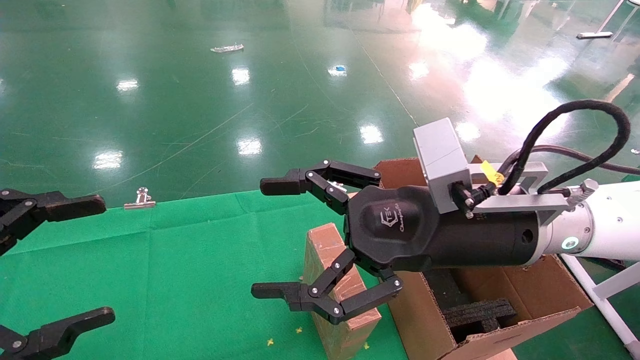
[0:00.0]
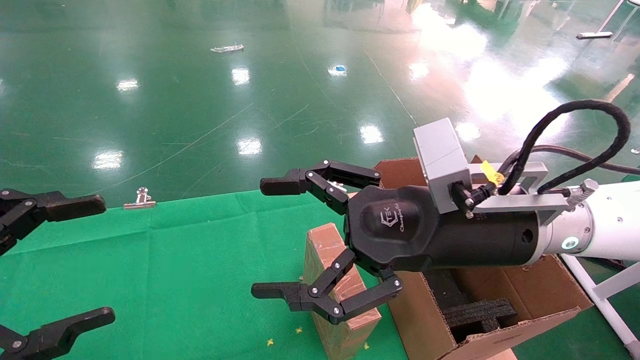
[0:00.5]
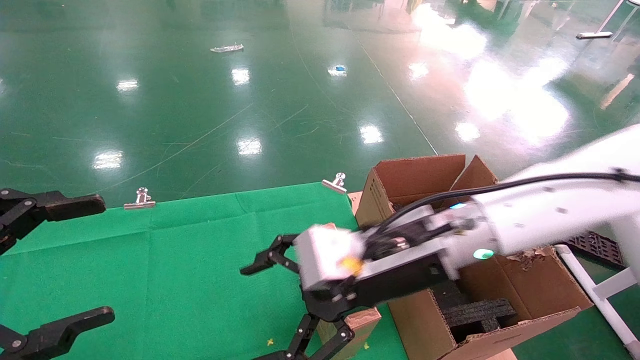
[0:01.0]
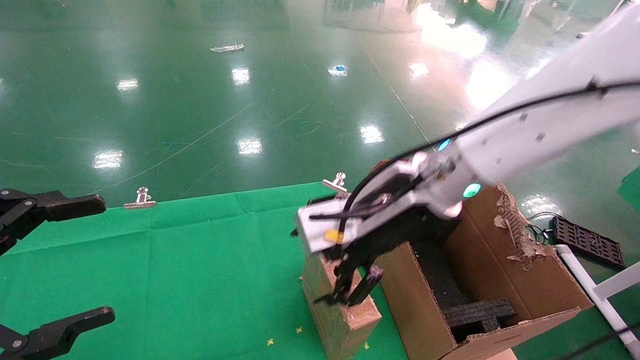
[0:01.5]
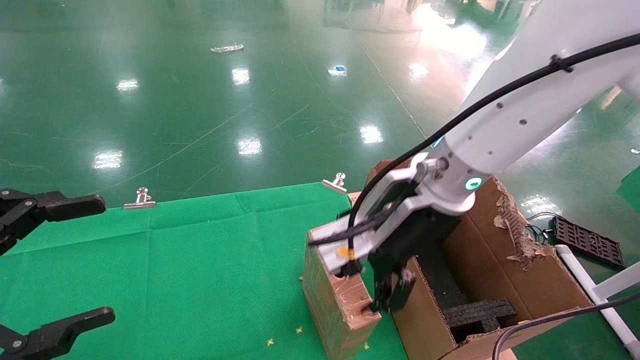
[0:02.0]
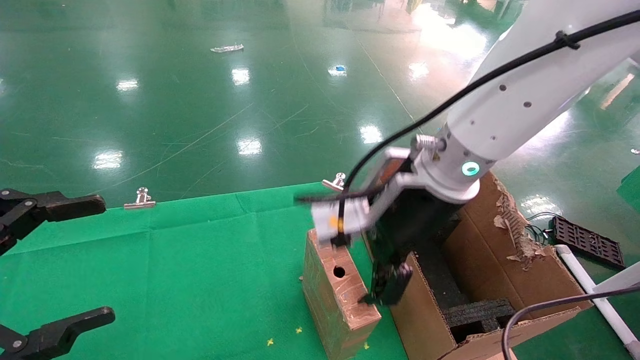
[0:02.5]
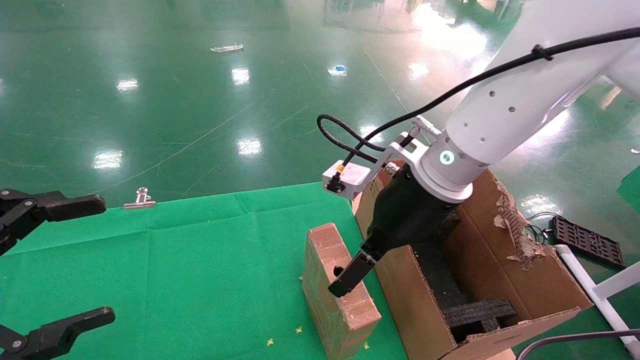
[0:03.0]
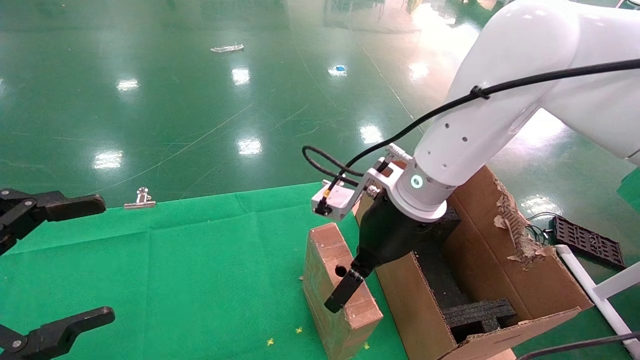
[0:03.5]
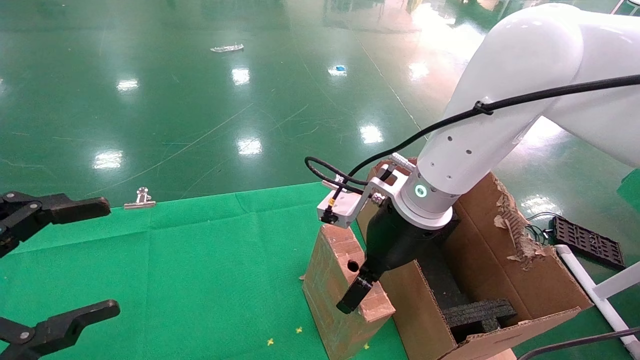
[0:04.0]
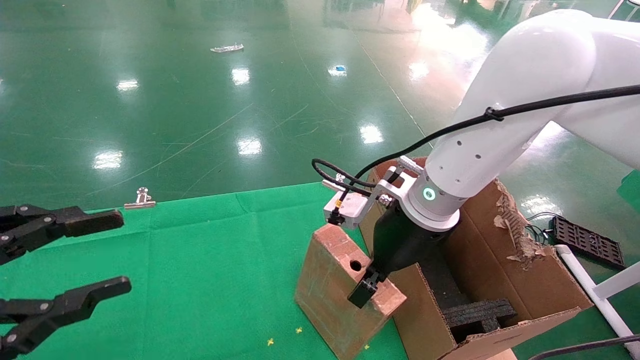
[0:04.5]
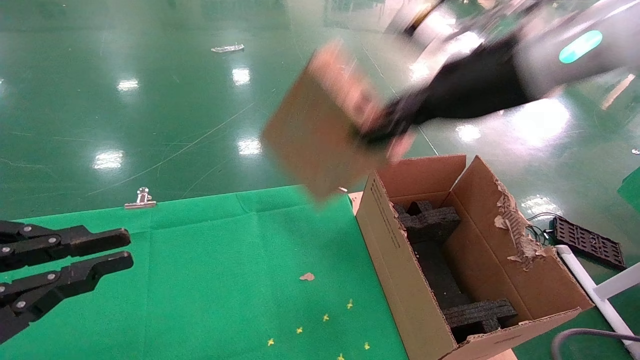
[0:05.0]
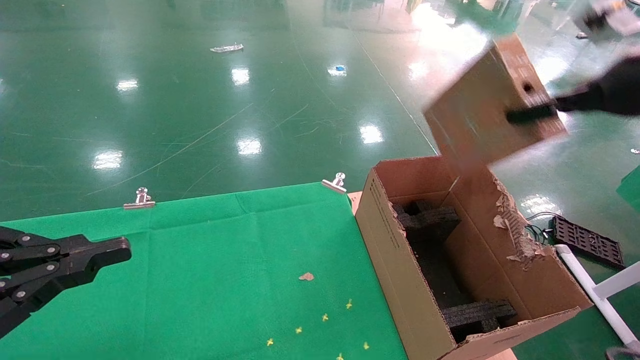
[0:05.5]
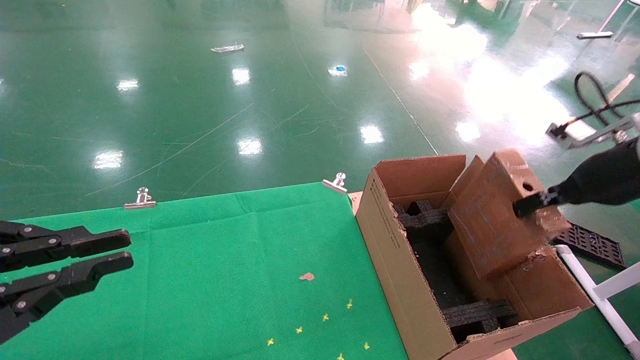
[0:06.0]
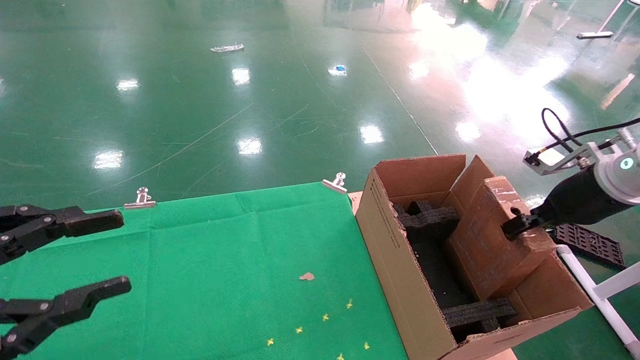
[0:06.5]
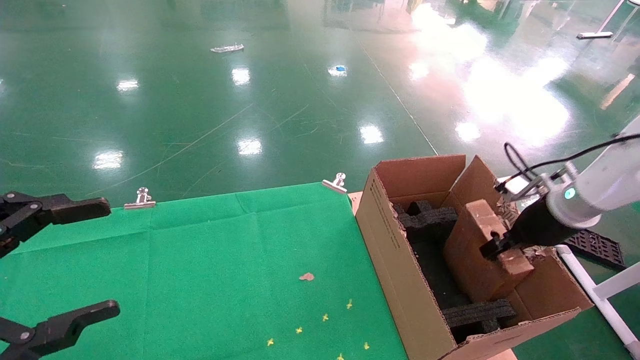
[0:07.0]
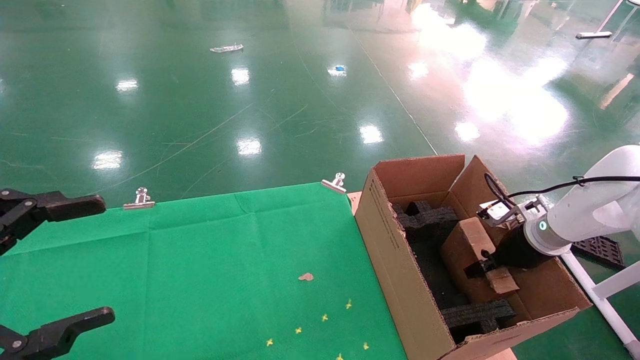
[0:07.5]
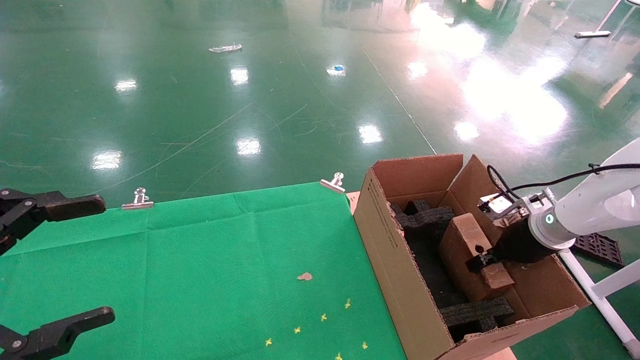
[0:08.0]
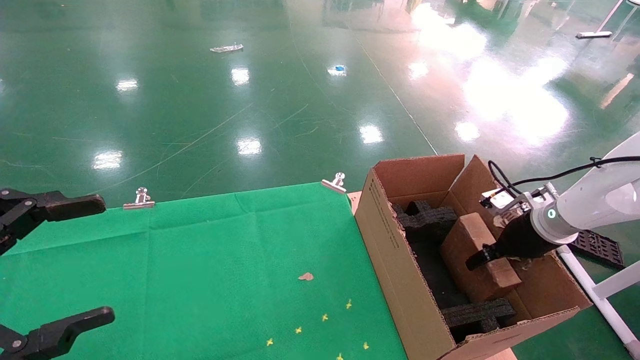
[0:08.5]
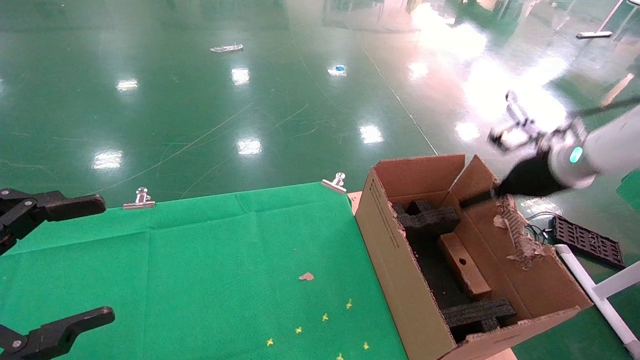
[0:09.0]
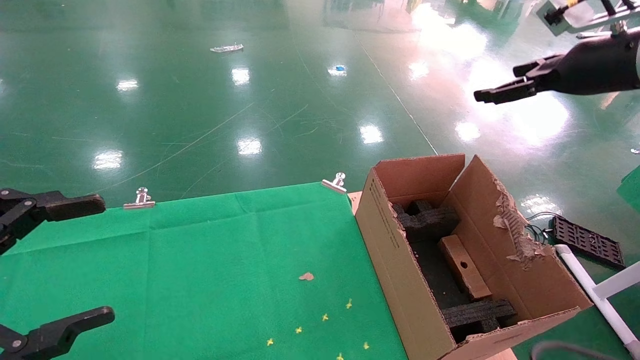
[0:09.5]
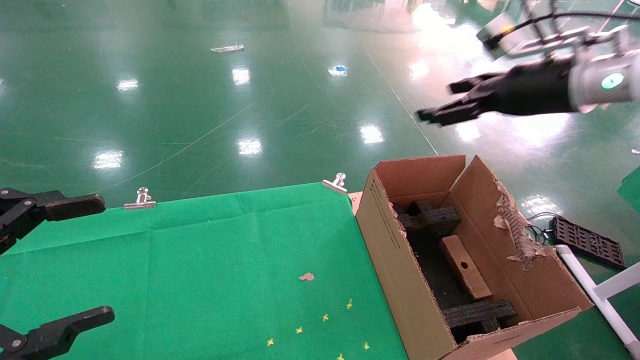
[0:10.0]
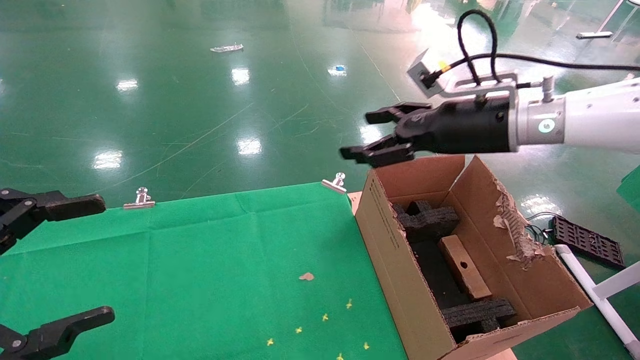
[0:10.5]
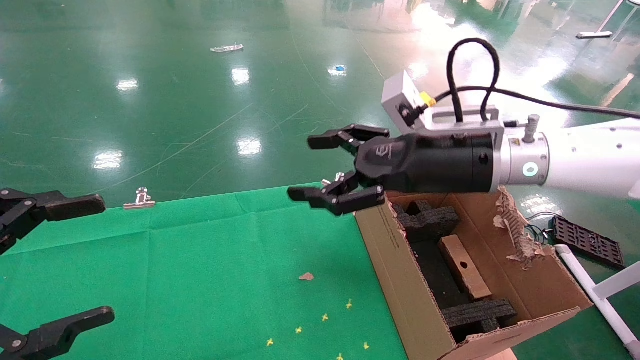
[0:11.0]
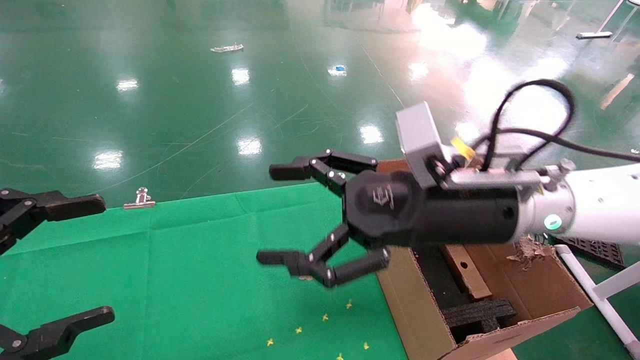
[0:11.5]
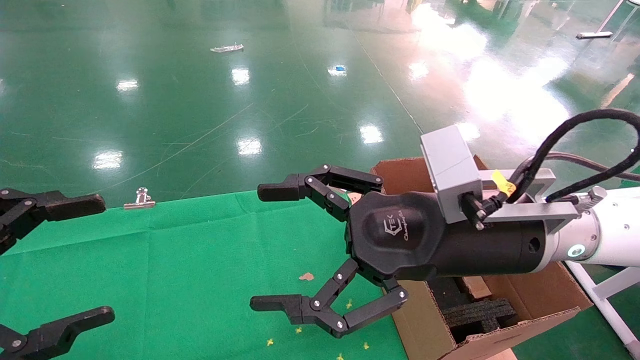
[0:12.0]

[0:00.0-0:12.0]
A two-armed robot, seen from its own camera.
Task of the whole recording: using a robotic arm to pick up a cardboard box and palace it the carton.
Step, 0:01.0 to 0:04.5: Pick up the mouse and the power cord paper box.
Step, 0:05.0 to 0:09.0: Place the mouse and the power cord paper box into the container.
0:00.0 to 0:02.0: The right gripper travels forward by approximately 5 cm.
0:02.0 to 0:04.0: The right gripper moves approximately 5 cm.
0:04.0 to 0:06.0: The left gripper closes up, while the right gripper travels to the right by about 30 cm, and closes up.
0:06.0 to 0:08.0: The right gripper goes roughly 20 cm downward and forward, while the left gripper opens.
0:08.0 to 0:10.0: The right gripper shifts approximately 25 cm upward, and opens up.
0:10.0 to 0:12.0: The right gripper travels to the left, backward and downward by approximately 25 cm.

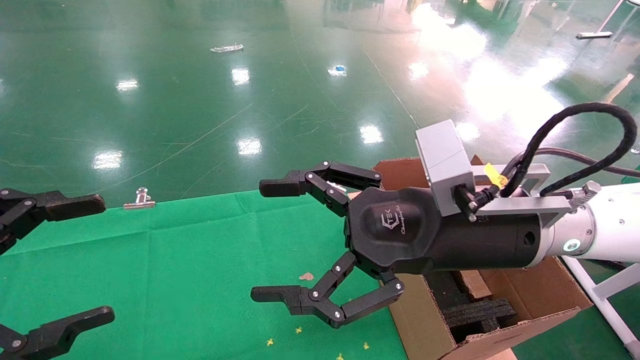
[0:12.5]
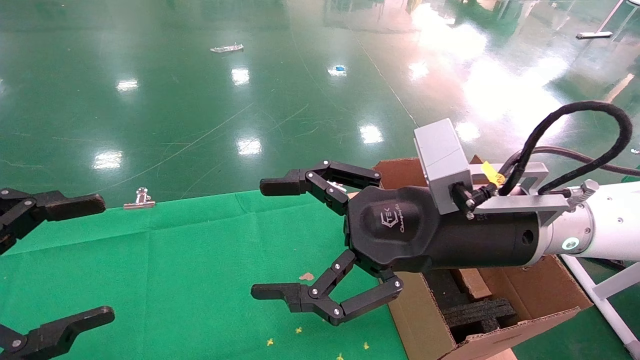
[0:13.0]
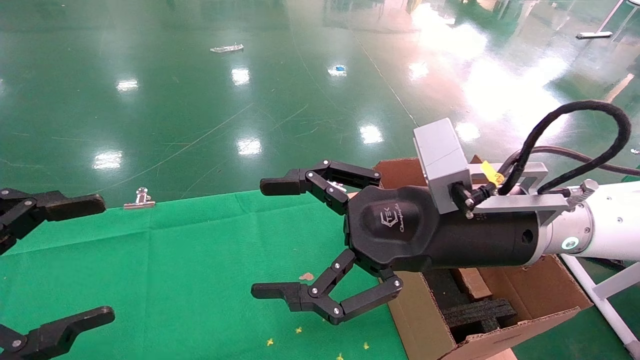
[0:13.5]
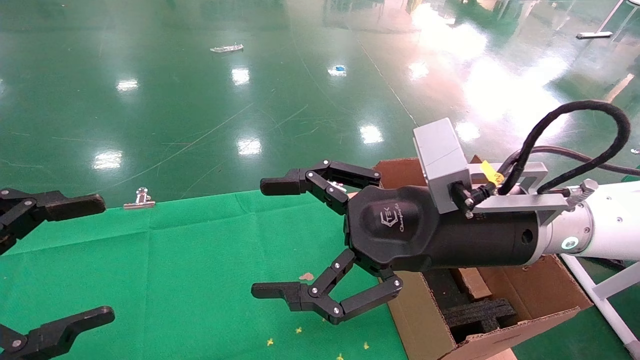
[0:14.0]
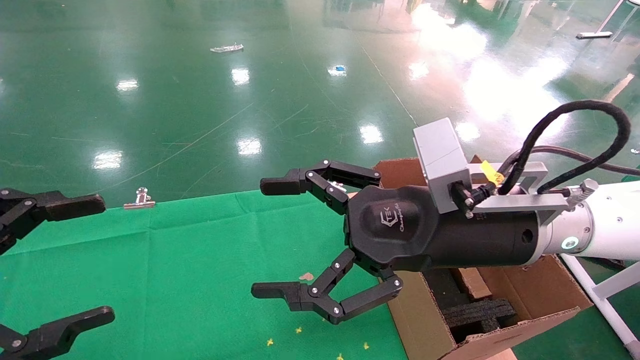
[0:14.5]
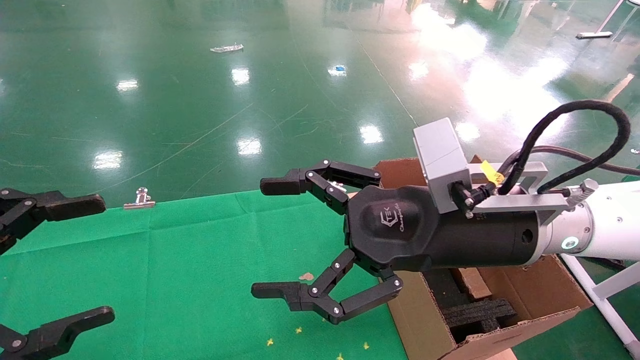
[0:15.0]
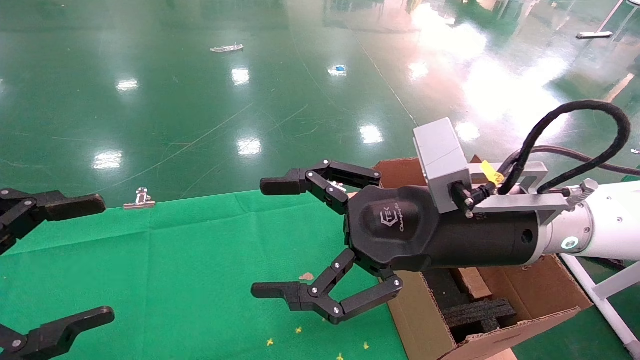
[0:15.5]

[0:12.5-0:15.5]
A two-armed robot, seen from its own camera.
Task of the whole recording: using a robotic arm to pick up a cardboard box and palace it the carton.
0:12.5 to 0:15.5: Neither gripper changes place.
